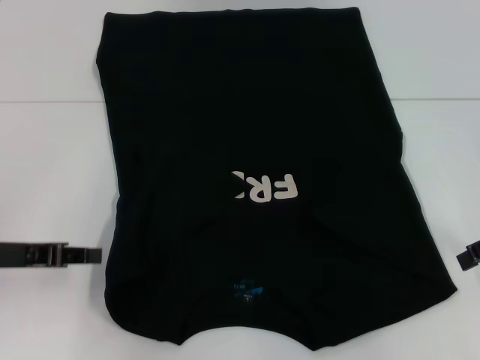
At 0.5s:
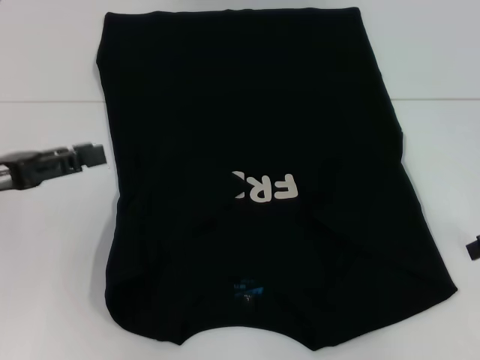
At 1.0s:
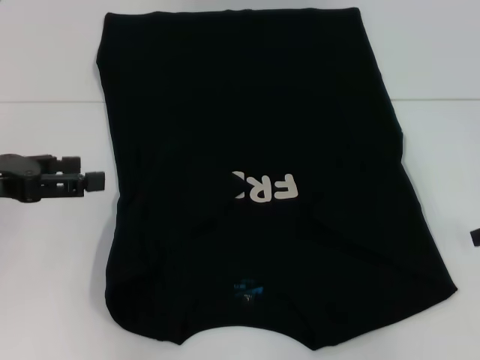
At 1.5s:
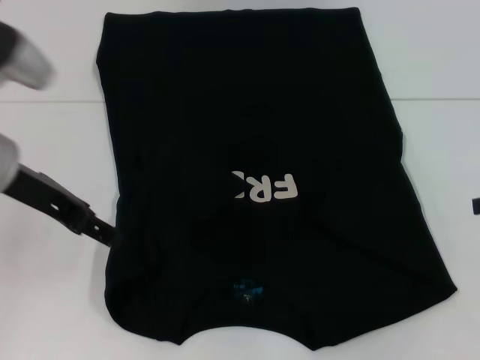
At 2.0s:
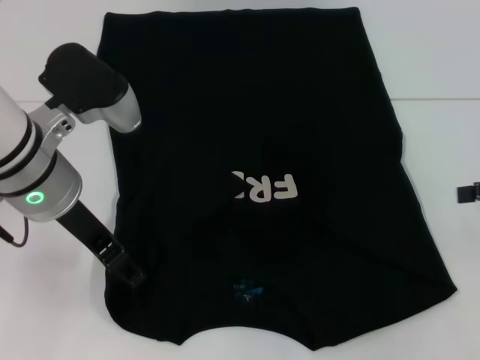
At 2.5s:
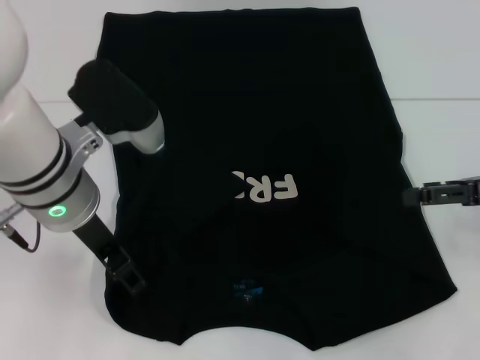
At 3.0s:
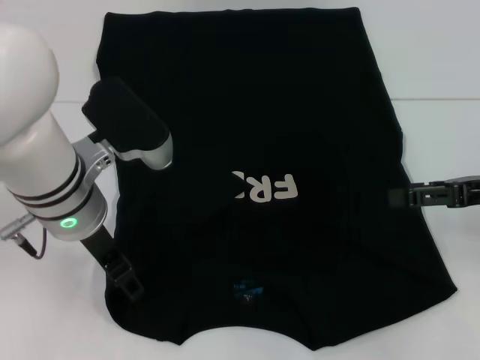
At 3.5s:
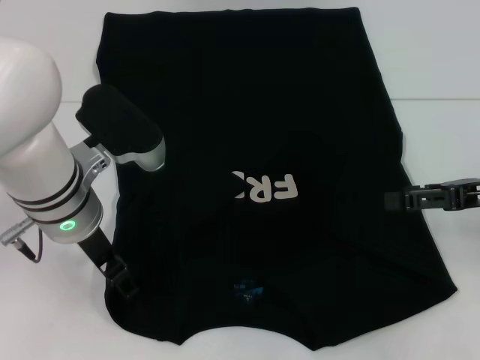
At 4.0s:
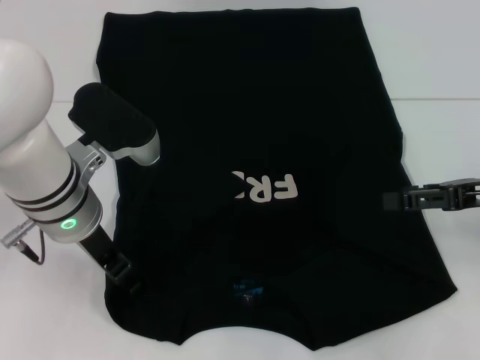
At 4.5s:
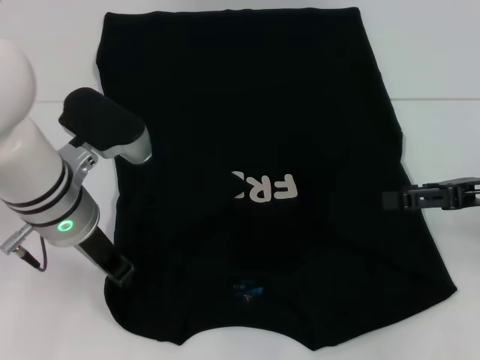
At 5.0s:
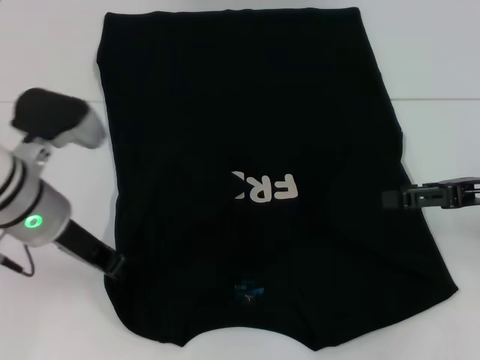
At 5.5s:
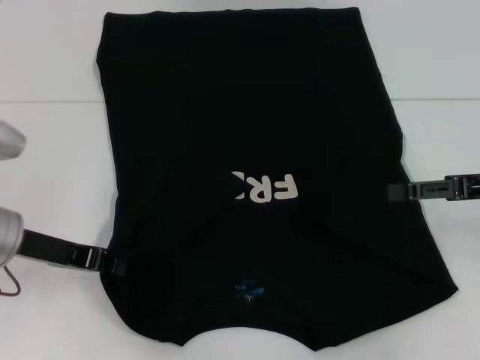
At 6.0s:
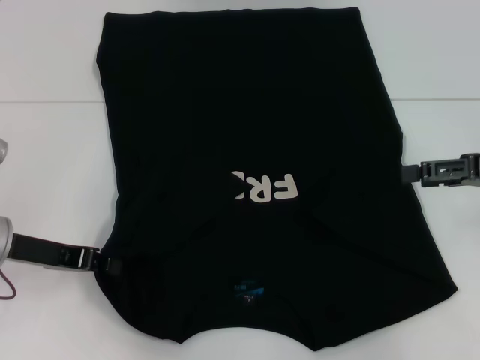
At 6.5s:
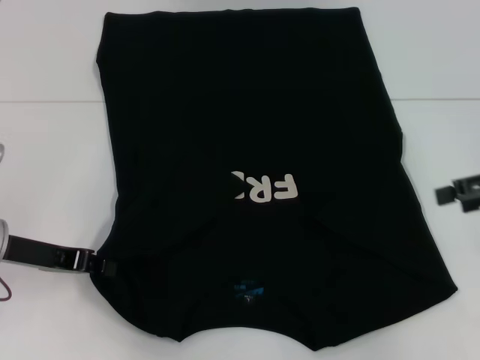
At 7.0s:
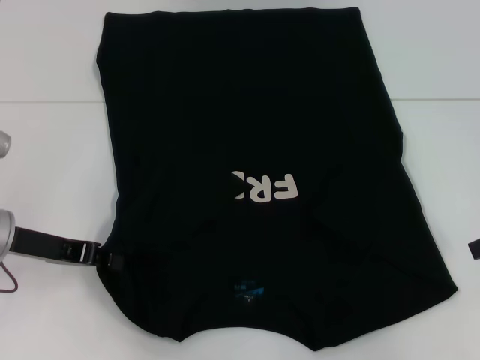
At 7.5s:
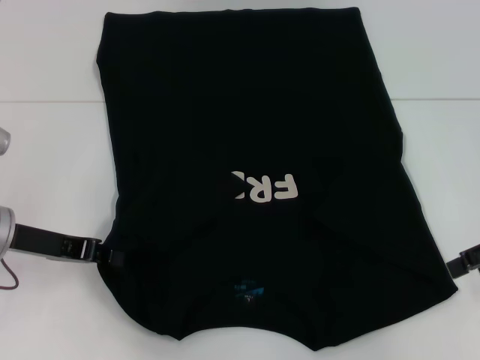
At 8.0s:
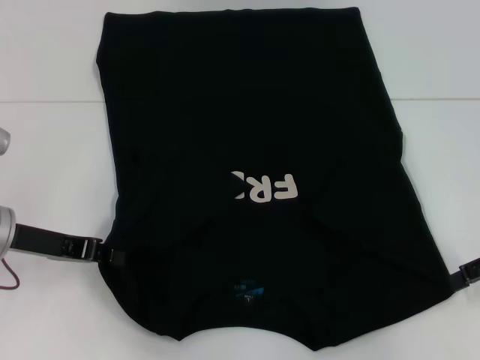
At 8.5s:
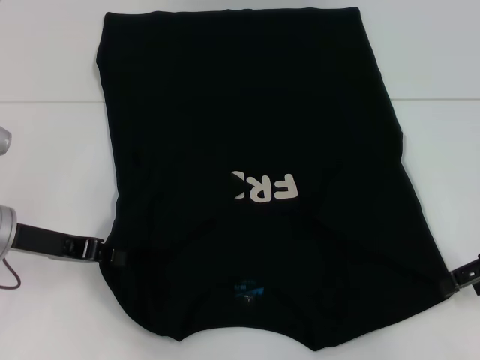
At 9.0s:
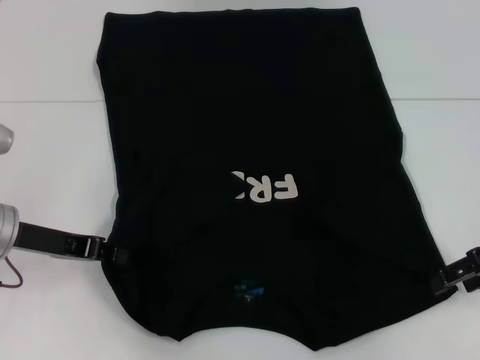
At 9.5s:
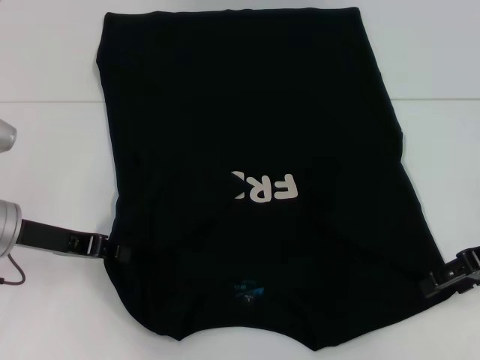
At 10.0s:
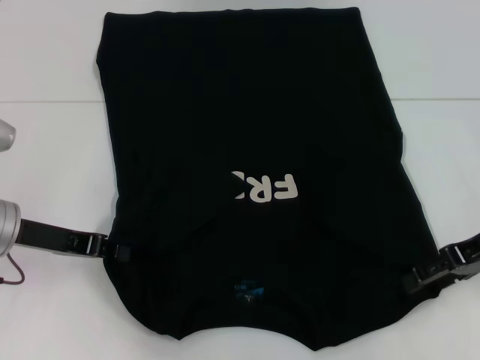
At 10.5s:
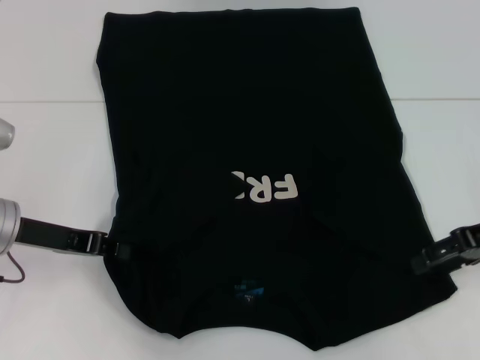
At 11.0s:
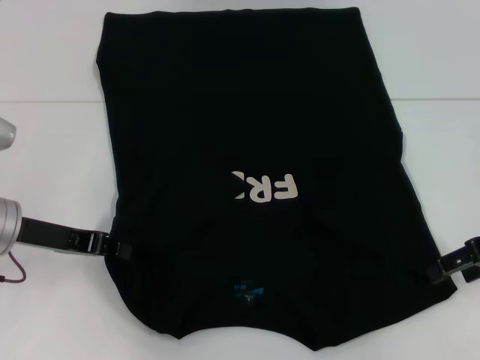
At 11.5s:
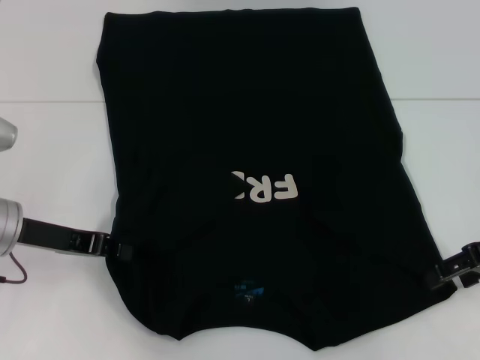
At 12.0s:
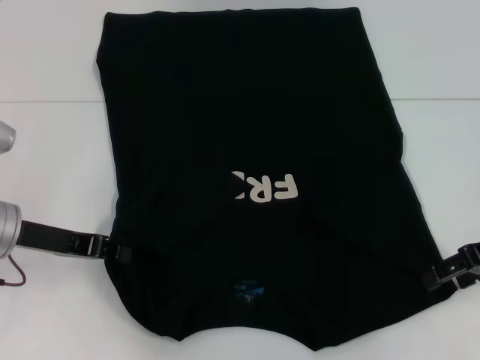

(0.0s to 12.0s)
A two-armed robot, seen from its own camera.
Step, 0.0s - 5.5s: Grab the bottom left corner with your left hand.
0.0s - 2.0s: The left gripper goes about 15 cm to the right and upward, and opens its fingers.
2.0s - 4.0s: The right gripper travels to the left by roughly 5 cm.
4.0s - 6.0s: The left gripper goes roughly 15 cm to the left and downward, and closes.
8.0s - 10.0s: The right gripper changes place by about 5 cm.
10.0s - 12.0s: There are only small adjustments of the grippers.

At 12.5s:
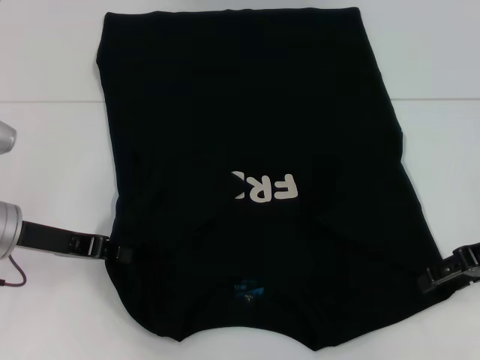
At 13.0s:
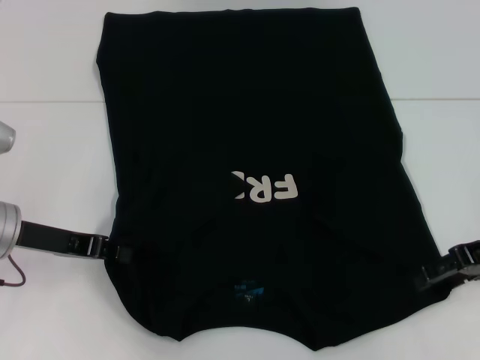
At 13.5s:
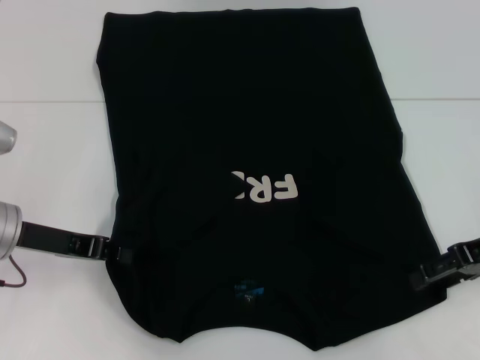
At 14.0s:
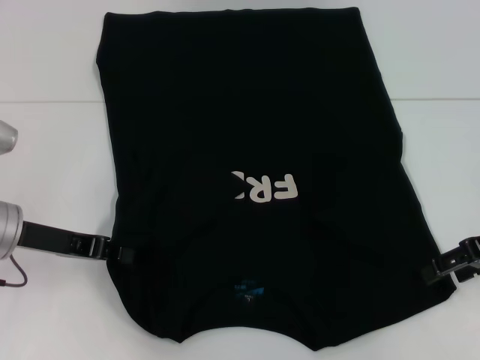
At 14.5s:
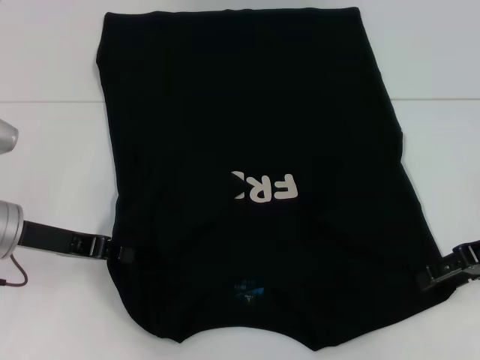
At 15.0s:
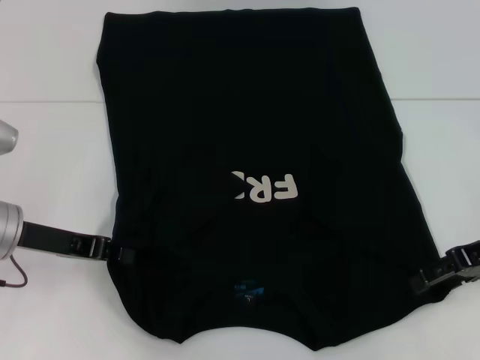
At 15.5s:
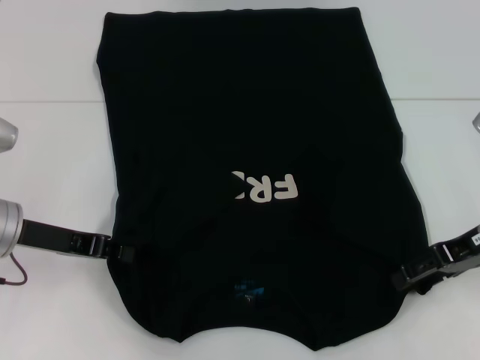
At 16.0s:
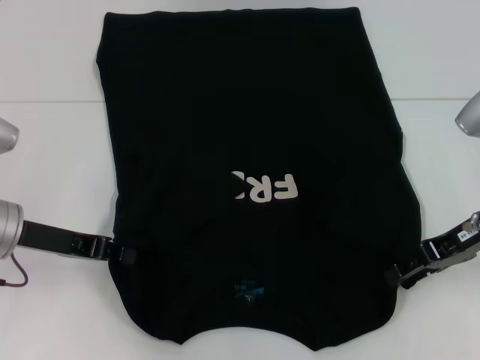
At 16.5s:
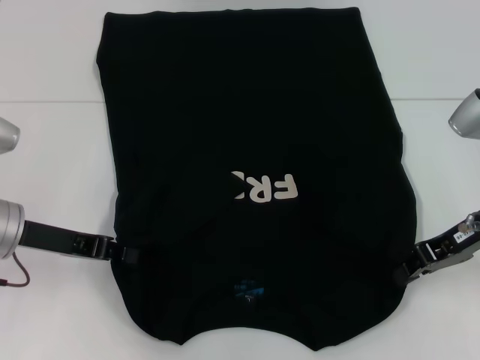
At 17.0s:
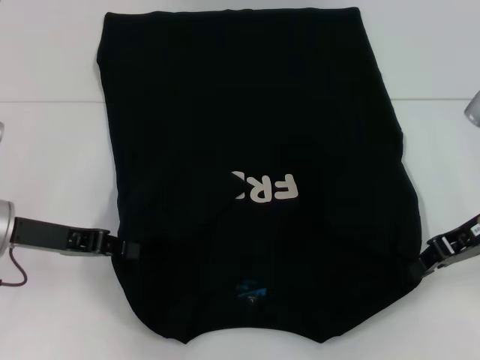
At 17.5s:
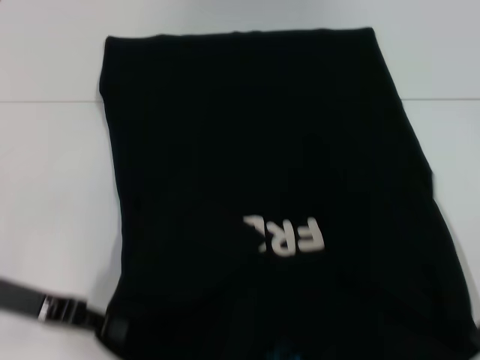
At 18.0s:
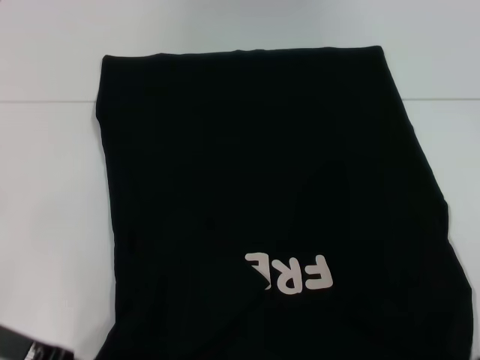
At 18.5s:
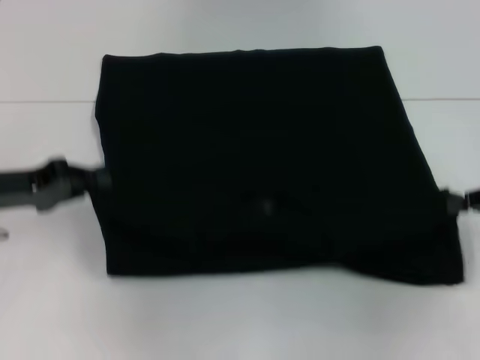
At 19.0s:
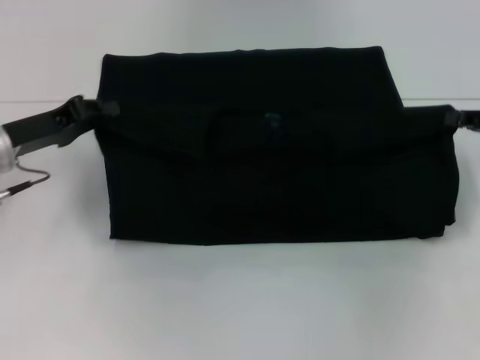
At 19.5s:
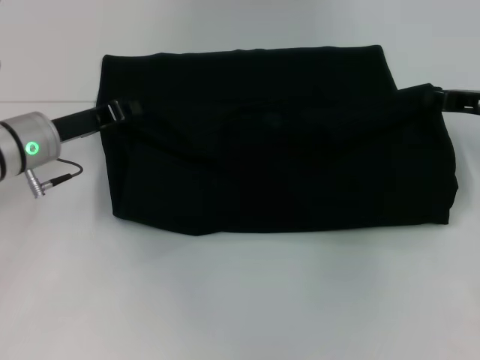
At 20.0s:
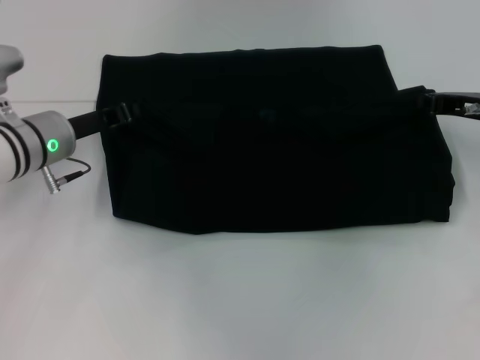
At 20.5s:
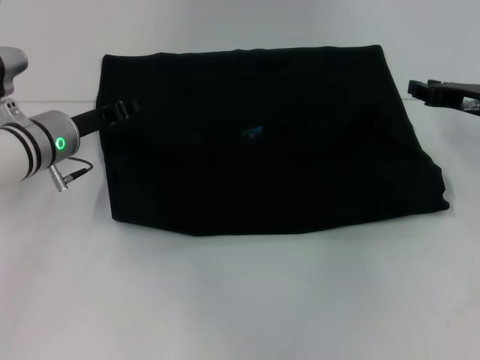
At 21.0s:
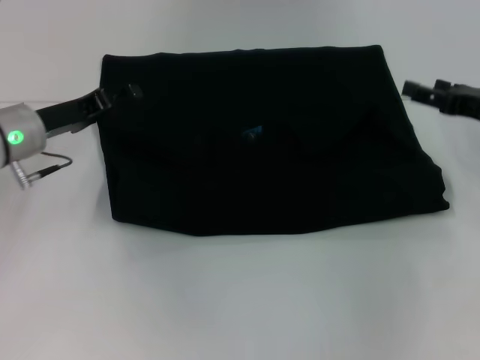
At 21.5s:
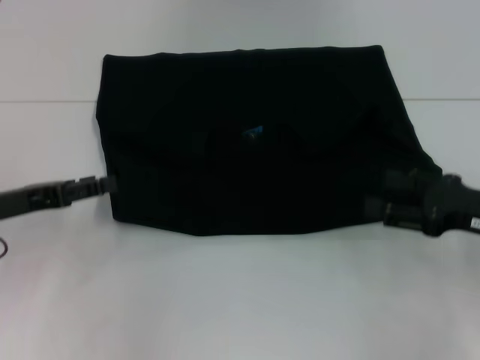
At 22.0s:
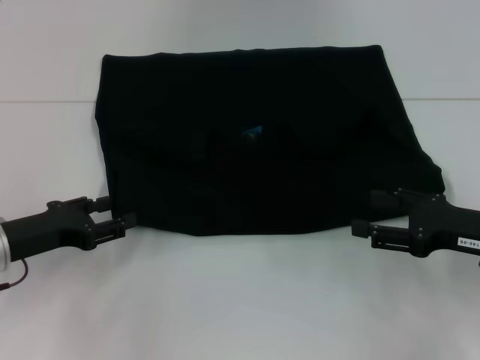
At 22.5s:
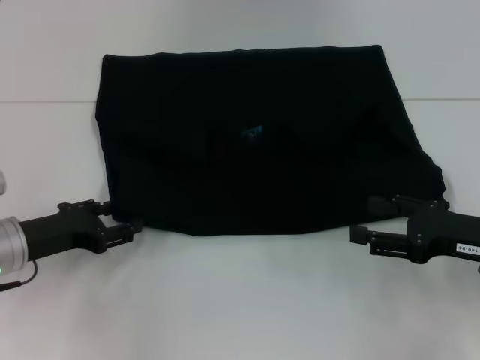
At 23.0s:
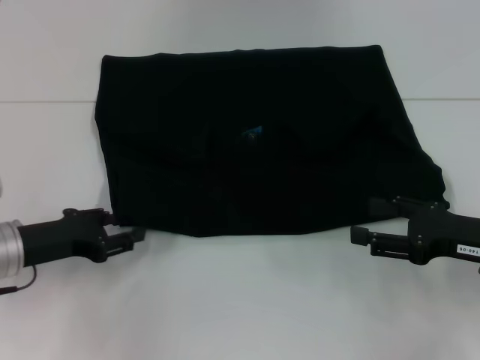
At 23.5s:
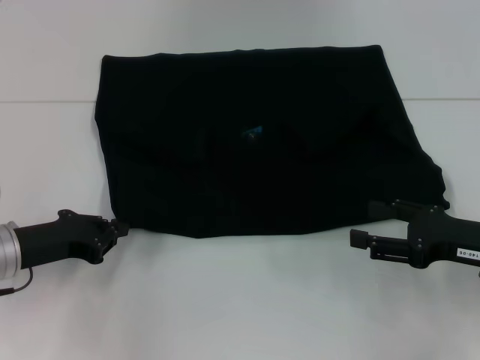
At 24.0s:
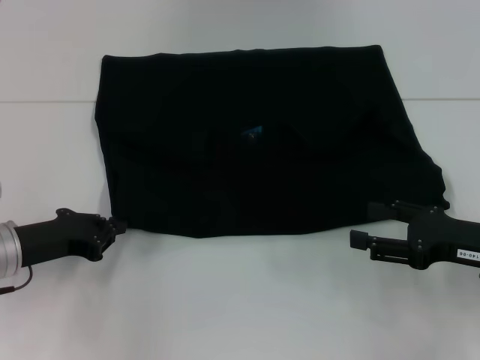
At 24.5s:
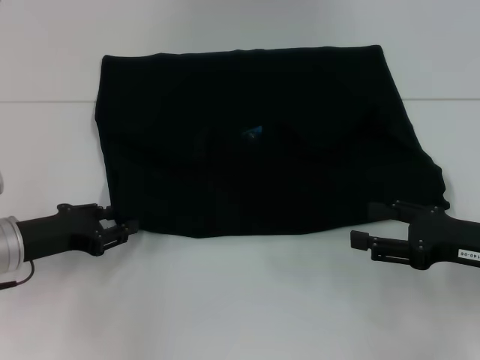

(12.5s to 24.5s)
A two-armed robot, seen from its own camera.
Step, 12.5s - 16.5s: Grab the bottom right corner with your right hand.
Step, 17.0s - 20.5s: Fold the clothes with your left hand.
Step, 17.0s - 20.5s: Fold the clothes with your right hand.
12.5s - 14.5s: The grippers move only a little.
14.5s - 16.5s: The right gripper closes its fingers.
16.5s - 18.5s: The right gripper shifts roughly 10 cm to the right.
18.5s - 20.5s: The left gripper moves to the right and forward, about 10 cm, while the right gripper travels forward and to the left by approximately 10 cm.
20.5s - 22.5s: The left gripper heads backward and to the left, covering about 10 cm, and opens, while the right gripper goes some 15 cm backward, and opens its fingers.
22.5s - 24.5s: The left gripper closes up.

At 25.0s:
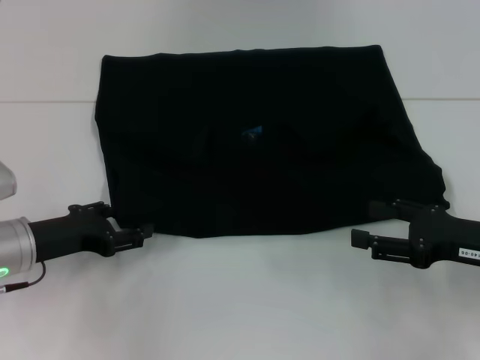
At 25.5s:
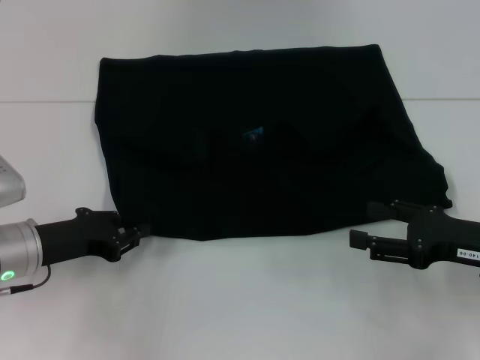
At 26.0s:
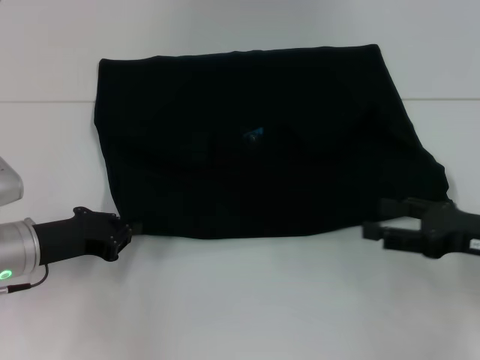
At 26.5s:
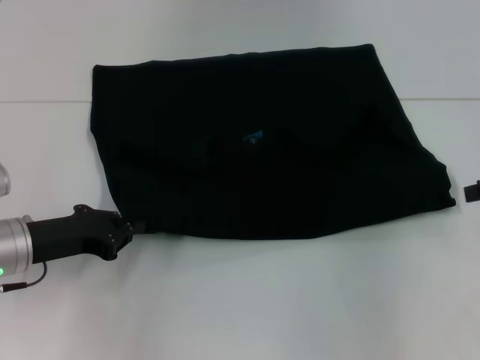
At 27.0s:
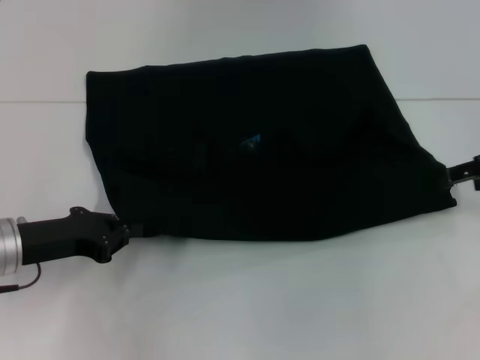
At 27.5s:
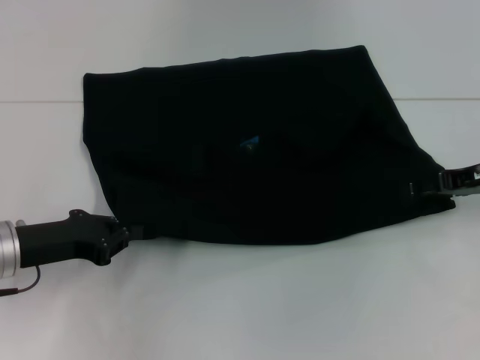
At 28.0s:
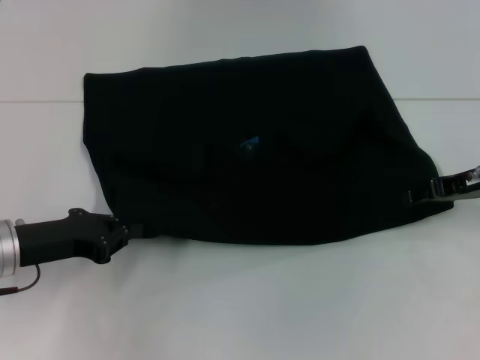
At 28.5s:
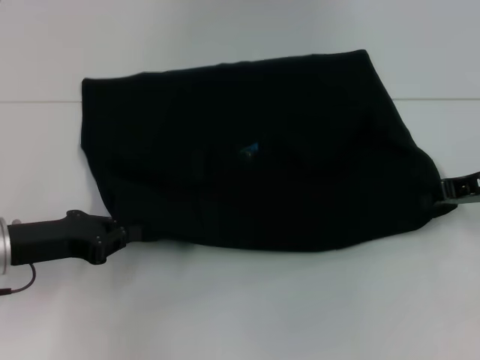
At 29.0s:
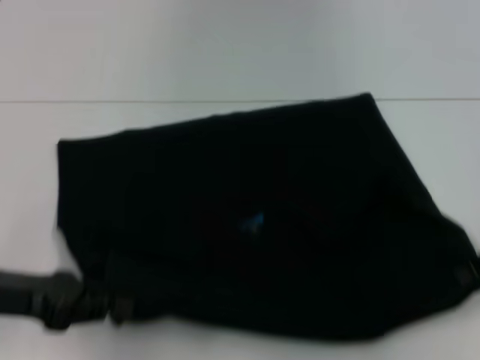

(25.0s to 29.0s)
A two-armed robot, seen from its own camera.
25.0s - 27.0s: The right gripper moves forward and upward, approximately 15 cm, while the left gripper closes.
27.0s - 29.0s: The right gripper moves backward, some 5 cm, and closes. The left gripper moves approximately 5 cm.
